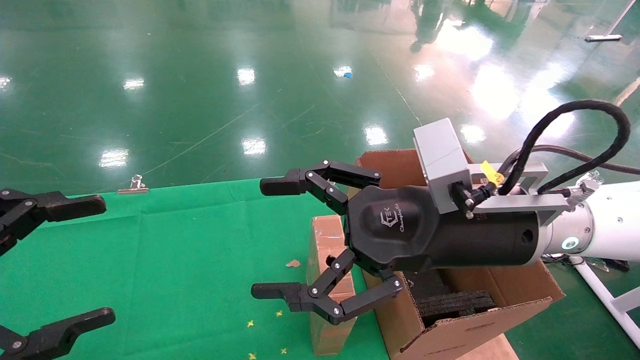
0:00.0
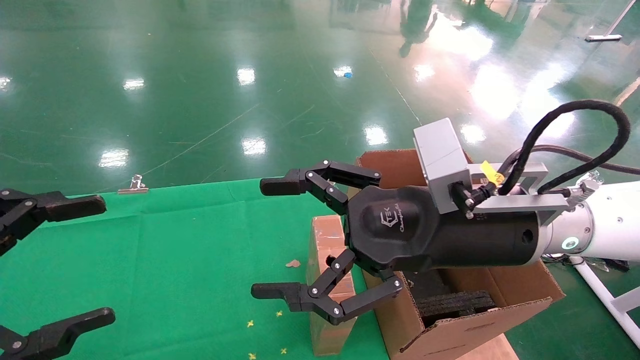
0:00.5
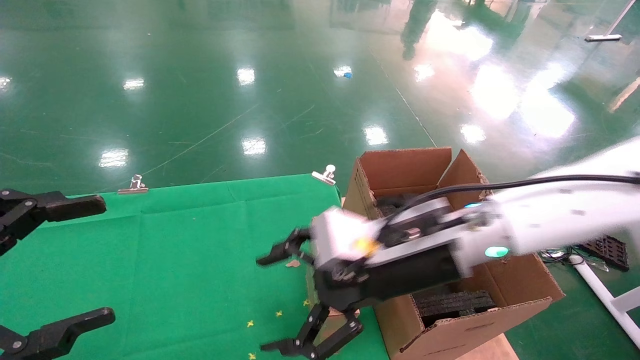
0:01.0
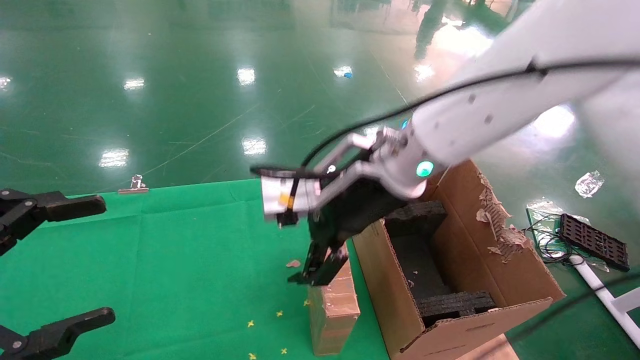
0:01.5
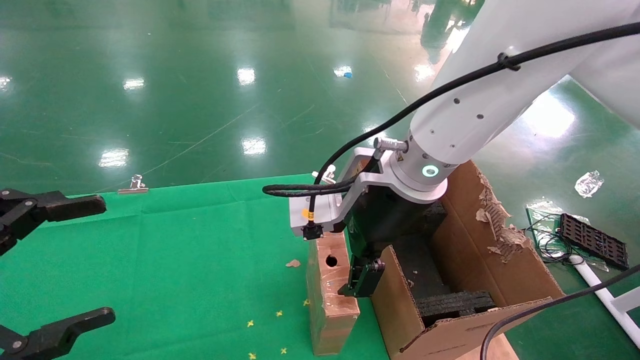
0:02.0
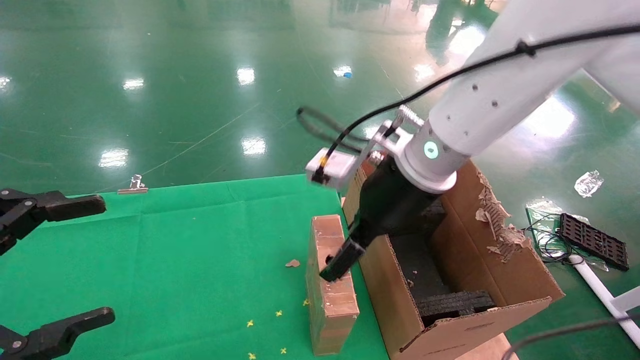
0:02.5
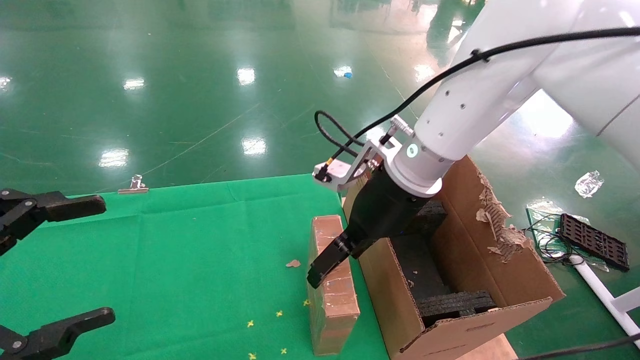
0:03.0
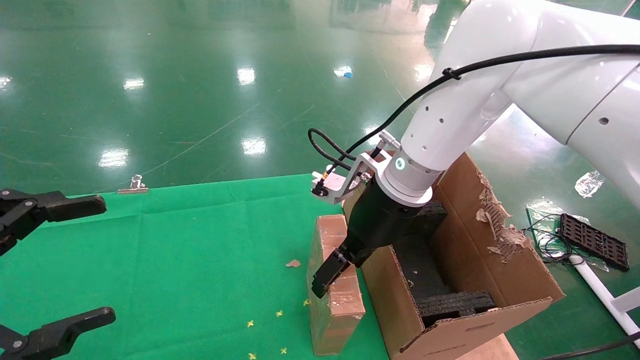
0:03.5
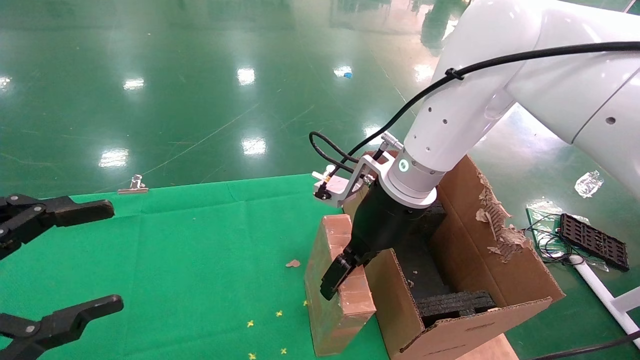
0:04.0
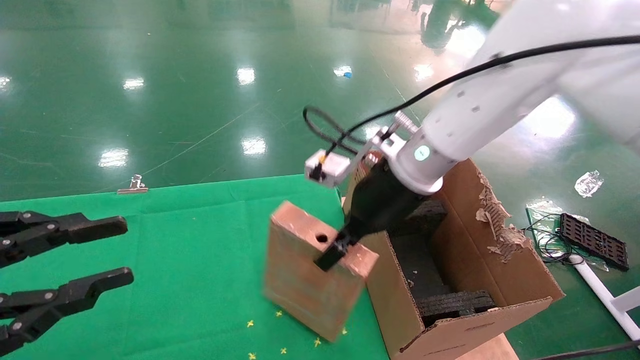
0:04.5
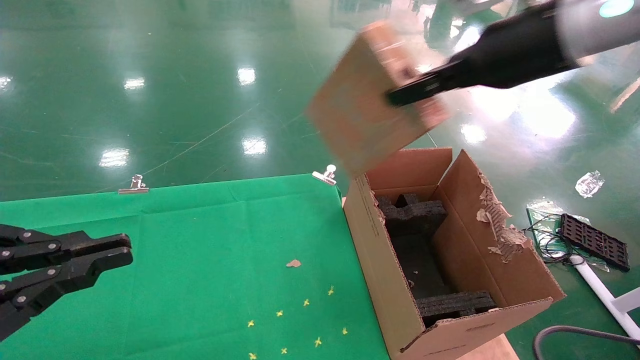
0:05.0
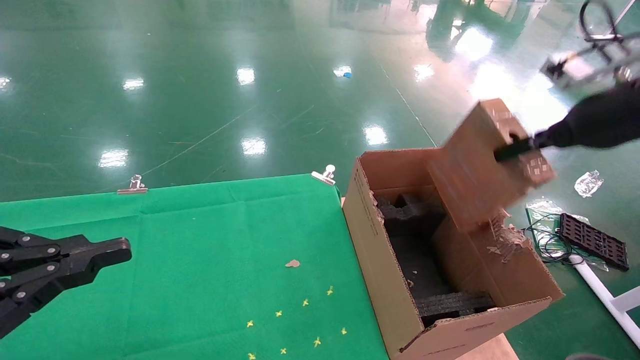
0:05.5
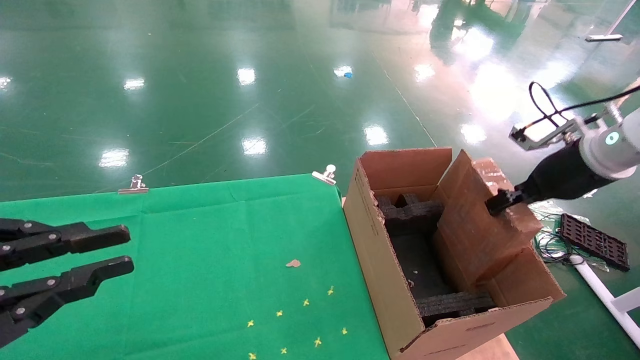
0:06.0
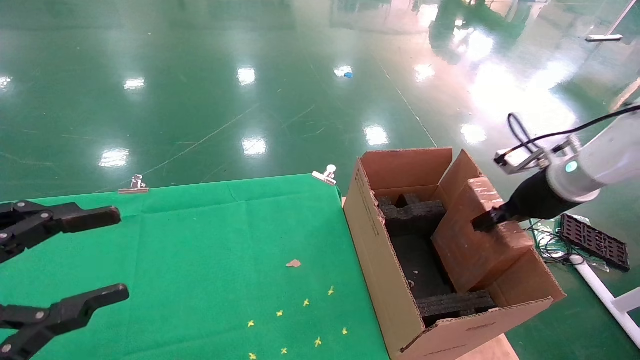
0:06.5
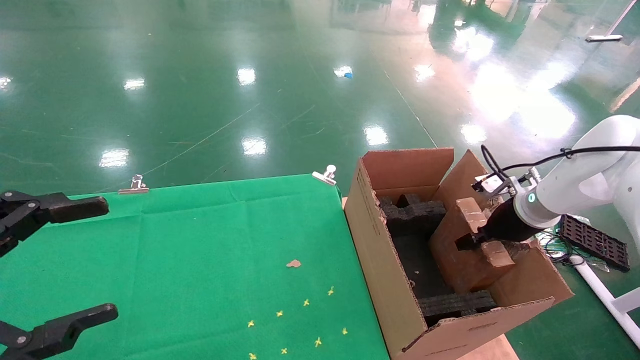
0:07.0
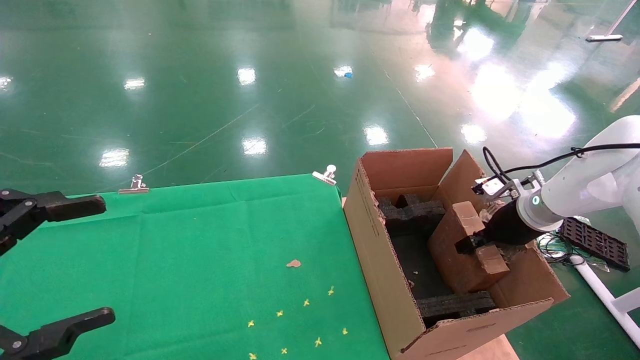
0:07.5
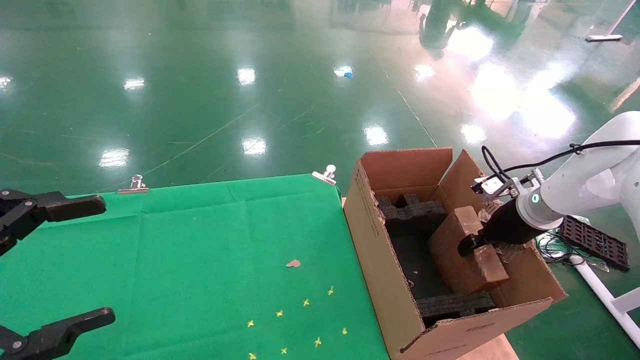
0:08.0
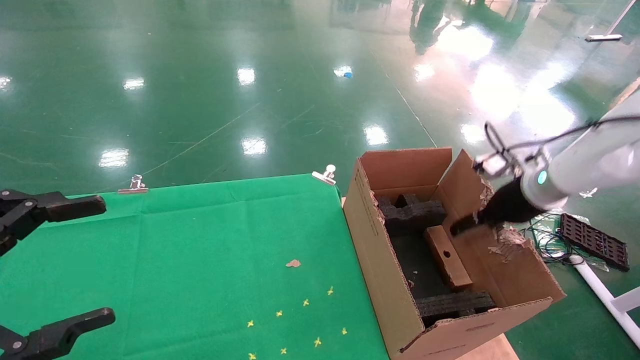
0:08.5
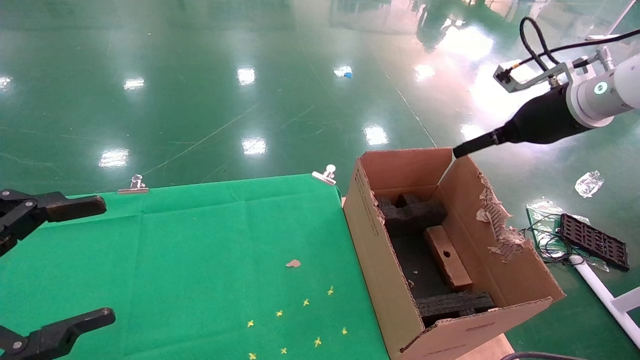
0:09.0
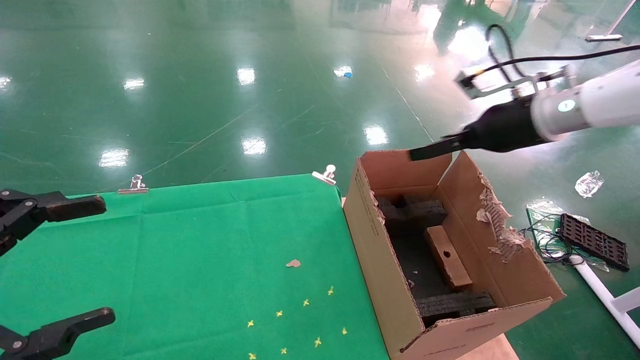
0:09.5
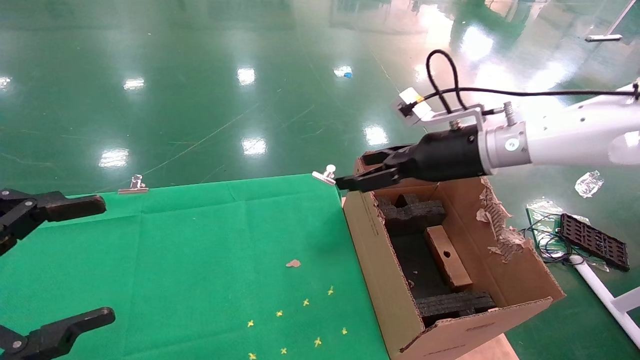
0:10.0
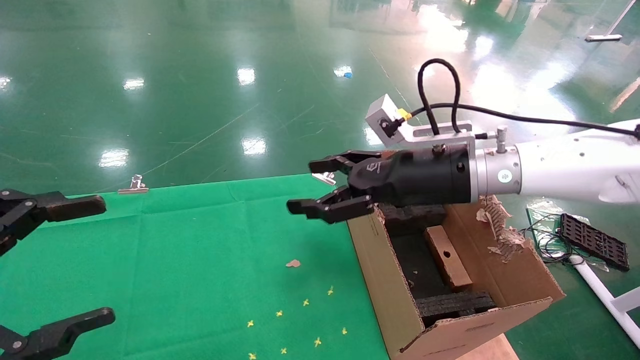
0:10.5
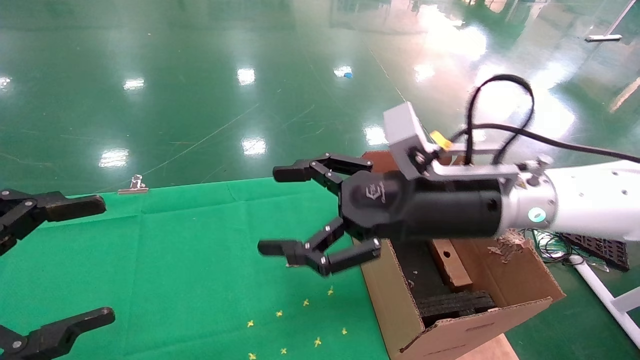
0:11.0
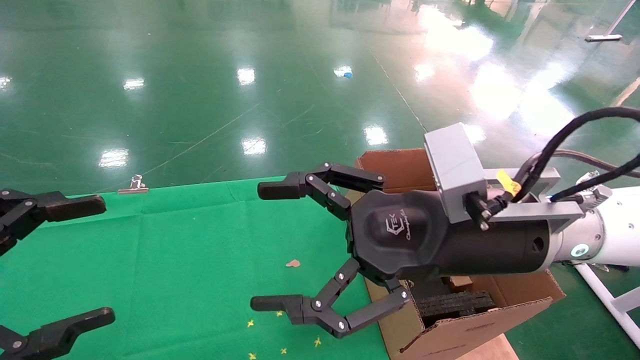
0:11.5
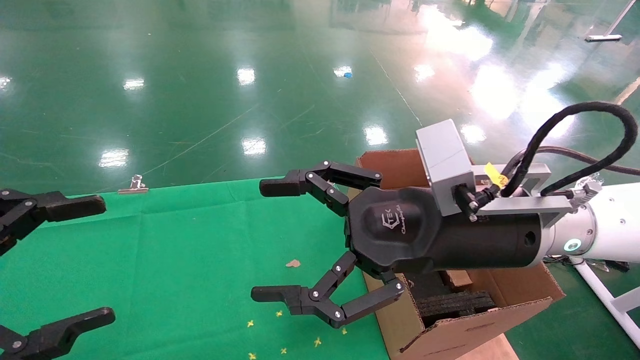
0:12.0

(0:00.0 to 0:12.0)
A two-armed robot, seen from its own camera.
Task of the whole recording: using a robotic arm to pick up a cardboard box and palace it the carton.
Step, 0:01.0 - 0:04.0: Pick up the mouse and the power cord paper box.
Step, 0:04.5 - 0:08.0: Place the mouse and the power cord paper box into the container.
0:00.0 - 0:02.0: The right gripper shifts roughly 10 cm forward and to the left.
0:02.0 - 0:04.0: The right gripper moves approximately 5 cm.
0:04.0 - 0:06.0: The left gripper closes. The right gripper shifts approximately 30 cm to the right, and closes.
0:06.0 - 0:08.0: The left gripper opens its fingers, while the right gripper travels downward and forward by about 15 cm.
0:08.0 - 0:10.0: The right gripper goes some 20 cm to the left and upward, and opens up.
0:10.0 - 0:12.0: The right gripper heads backward and to the left, covering approximately 20 cm.

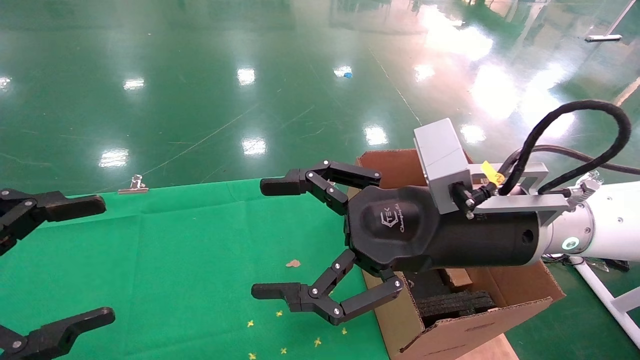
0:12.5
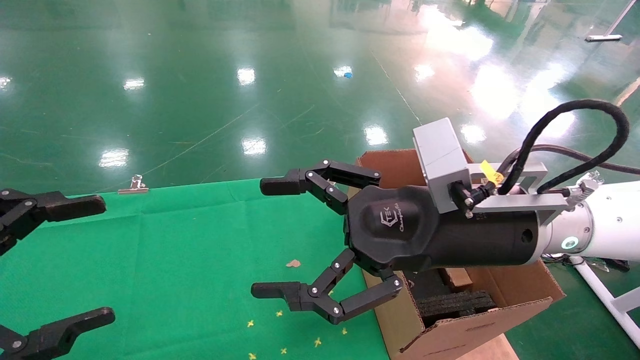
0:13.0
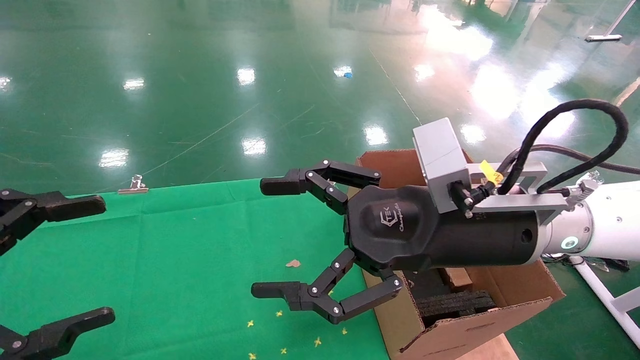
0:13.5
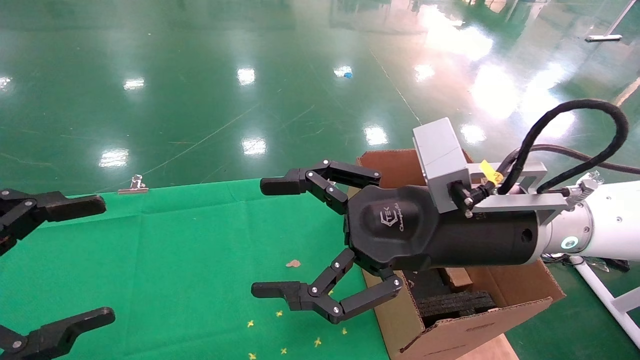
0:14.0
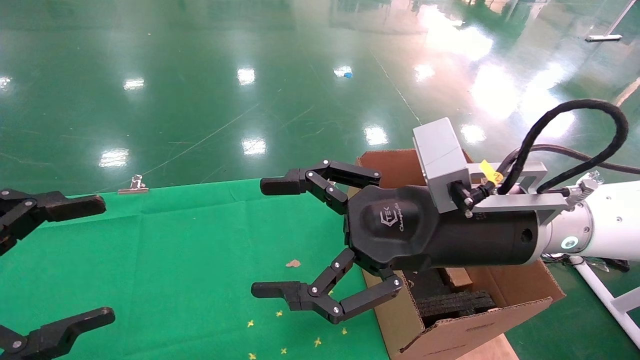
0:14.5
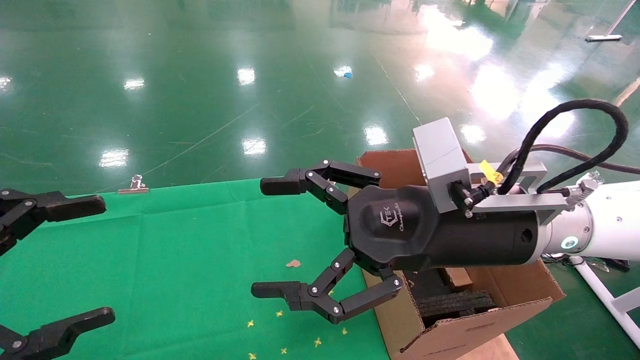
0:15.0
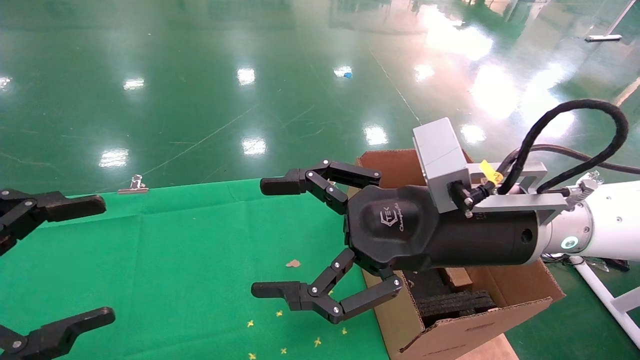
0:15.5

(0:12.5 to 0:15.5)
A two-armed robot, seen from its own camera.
Task of the whole recording: using a robotic arm to pick up a cardboard box and palace it the carton.
0:12.5 - 0:15.5: The two grippers keep their place.

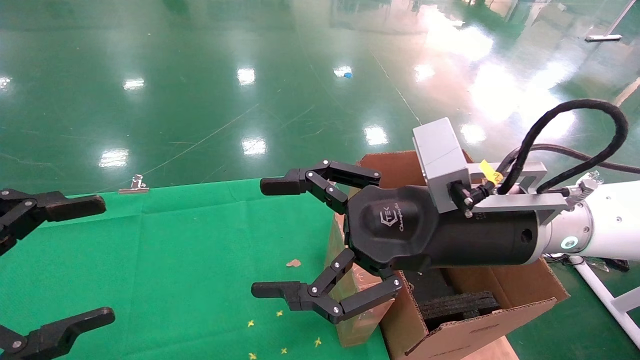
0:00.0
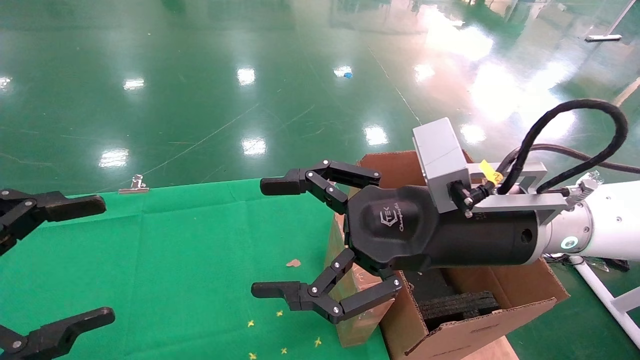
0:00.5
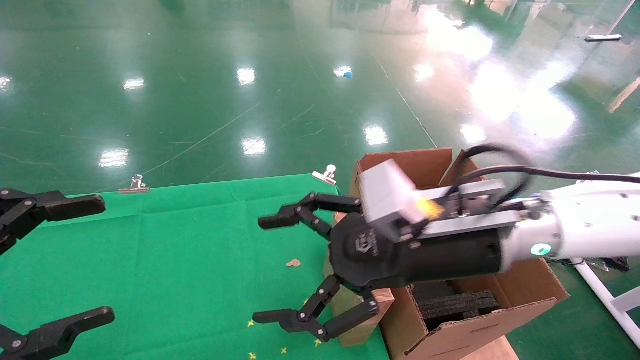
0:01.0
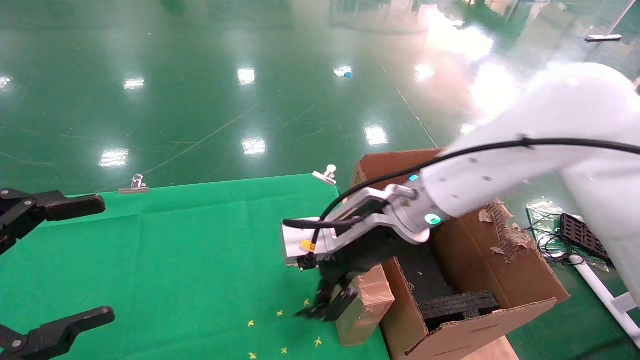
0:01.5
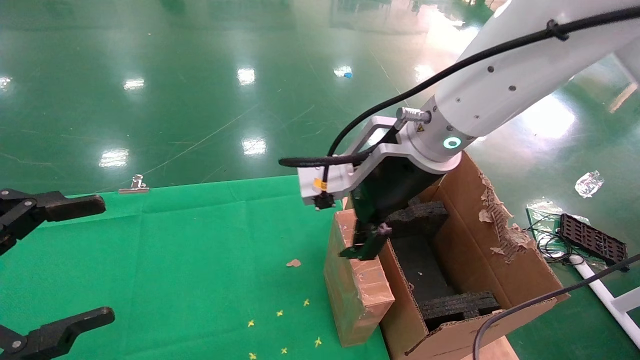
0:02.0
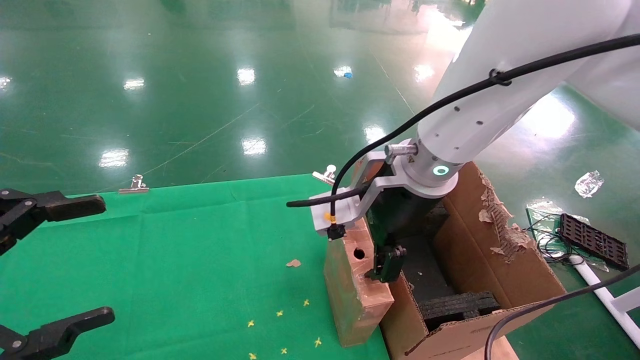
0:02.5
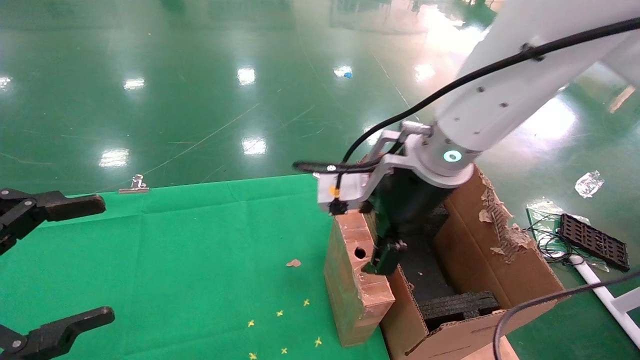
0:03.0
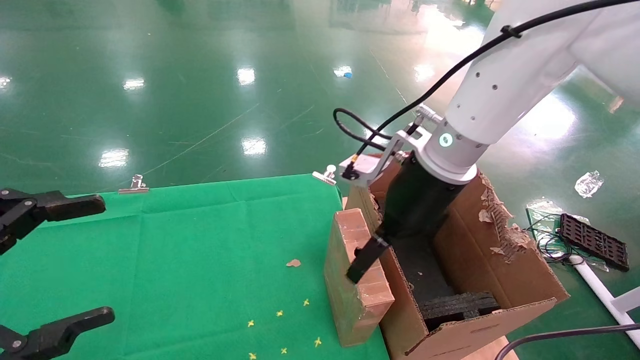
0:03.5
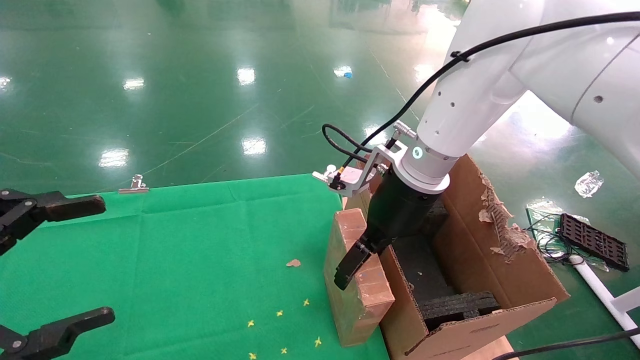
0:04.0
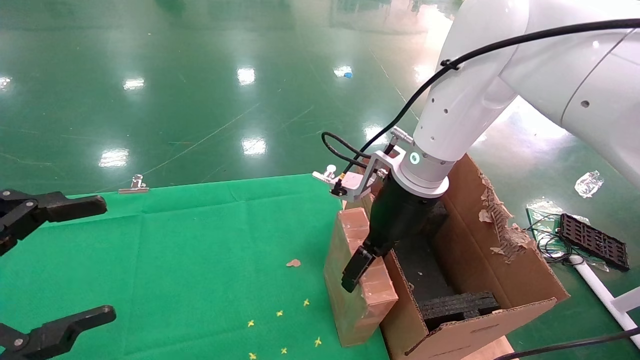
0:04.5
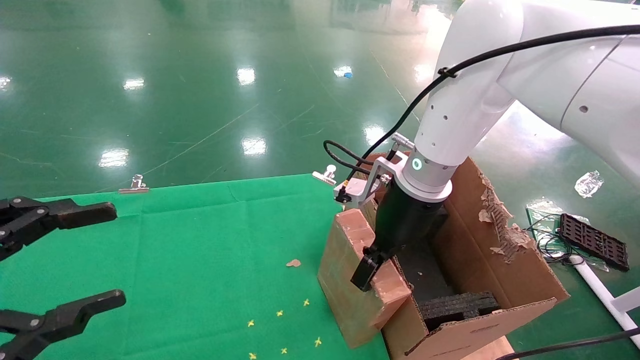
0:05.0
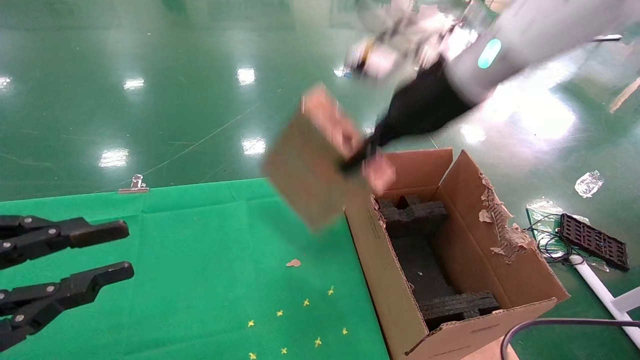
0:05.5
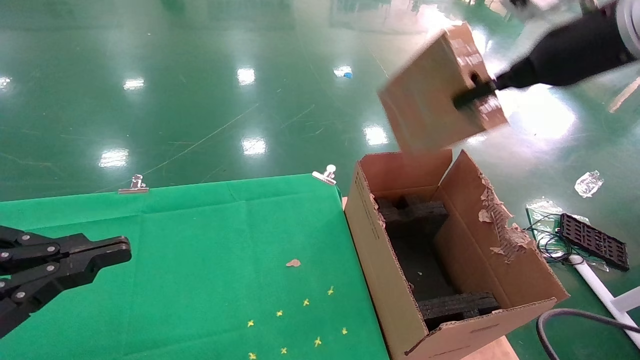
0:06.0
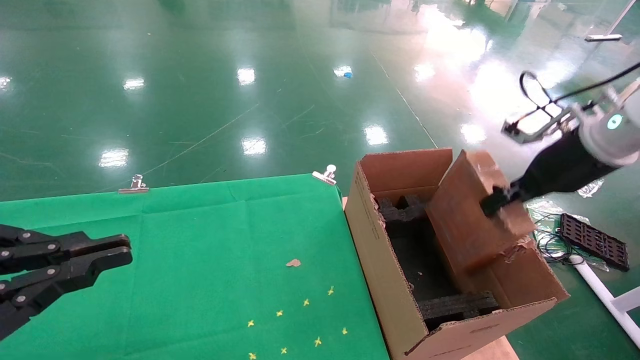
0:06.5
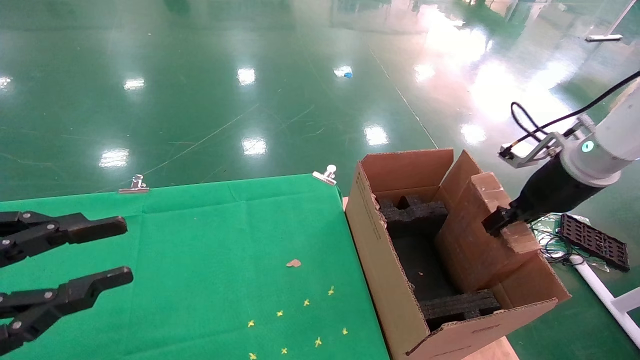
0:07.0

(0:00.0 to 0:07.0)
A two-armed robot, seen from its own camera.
Task of the whole recording: using a robotic arm to pick up a cardboard box and palace it the carton.
Step, 0:01.0 - 0:05.0: Pick up the mouse and the power cord paper box.
0:00.0 - 0:02.0: The right gripper heads forward, to the left and upward, covering some 10 cm.
0:02.0 - 0:03.5: The right gripper changes place by some 5 cm.
0:03.5 - 0:05.0: The right gripper closes.
0:05.0 - 0:07.0: The right gripper goes roughly 25 cm to the right, and closes up, while the left gripper closes its fingers.
